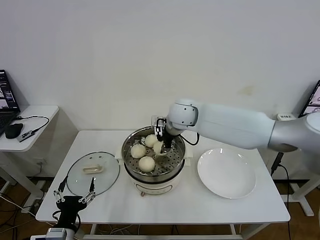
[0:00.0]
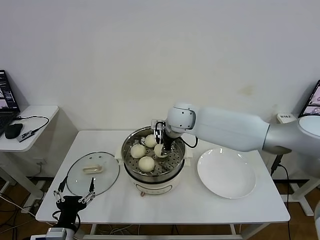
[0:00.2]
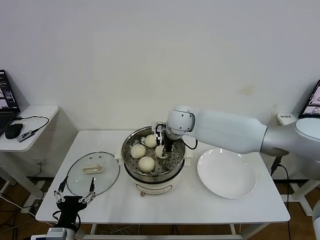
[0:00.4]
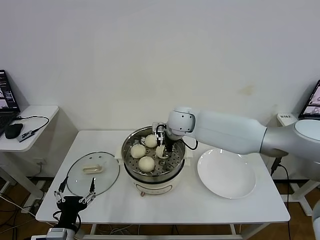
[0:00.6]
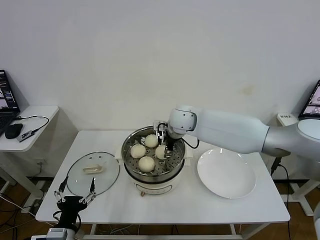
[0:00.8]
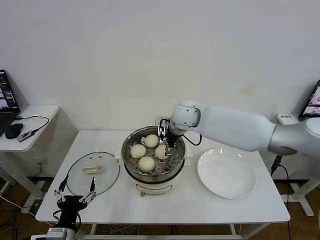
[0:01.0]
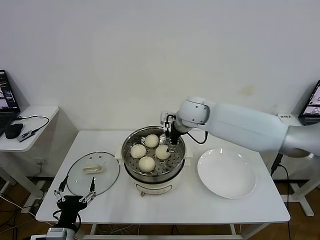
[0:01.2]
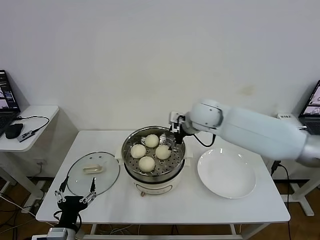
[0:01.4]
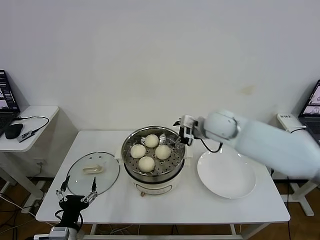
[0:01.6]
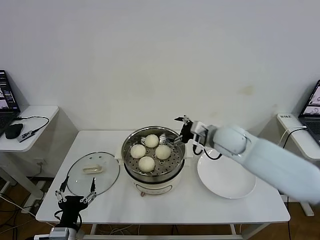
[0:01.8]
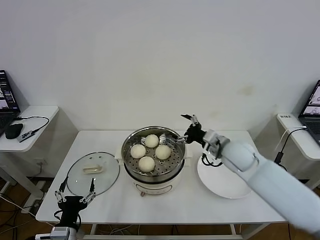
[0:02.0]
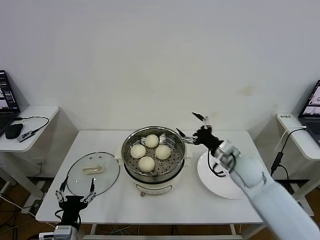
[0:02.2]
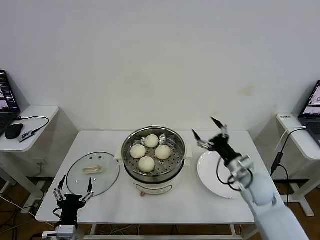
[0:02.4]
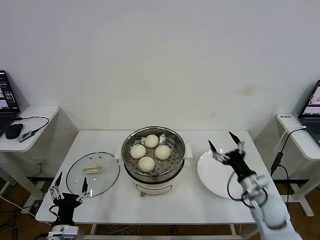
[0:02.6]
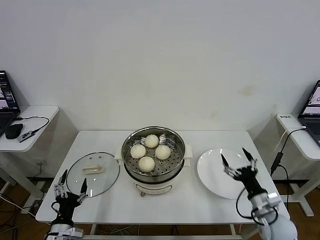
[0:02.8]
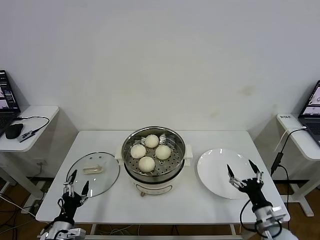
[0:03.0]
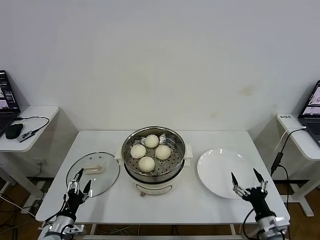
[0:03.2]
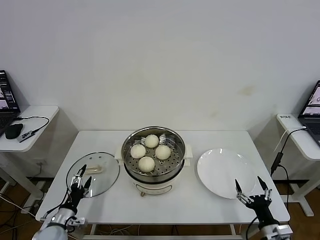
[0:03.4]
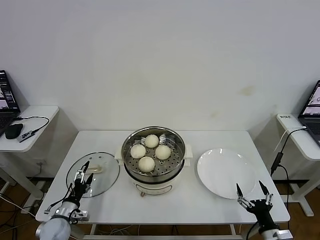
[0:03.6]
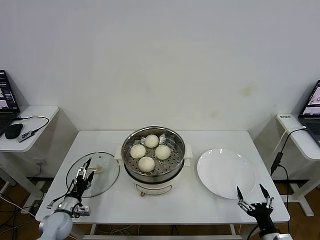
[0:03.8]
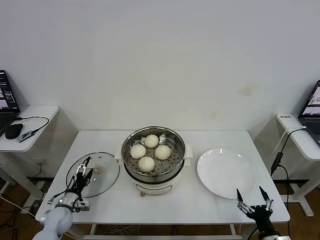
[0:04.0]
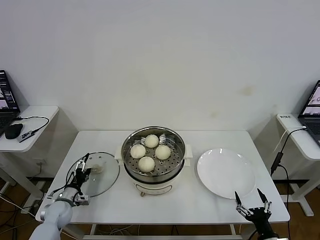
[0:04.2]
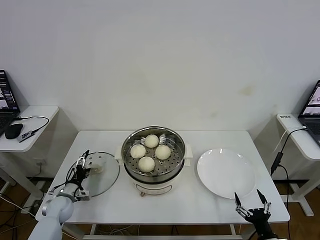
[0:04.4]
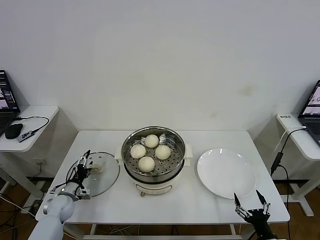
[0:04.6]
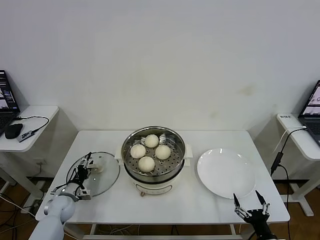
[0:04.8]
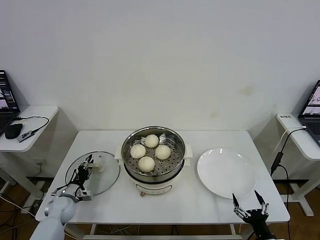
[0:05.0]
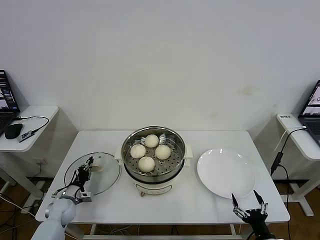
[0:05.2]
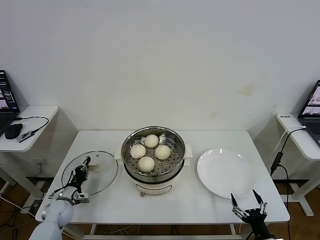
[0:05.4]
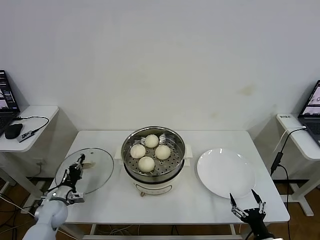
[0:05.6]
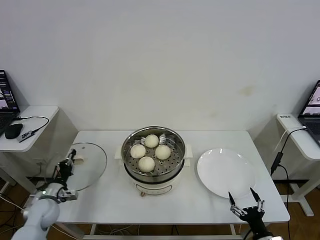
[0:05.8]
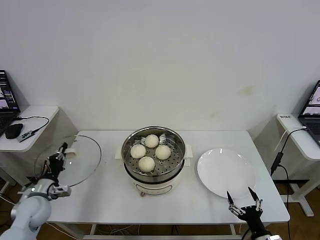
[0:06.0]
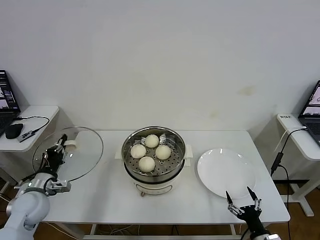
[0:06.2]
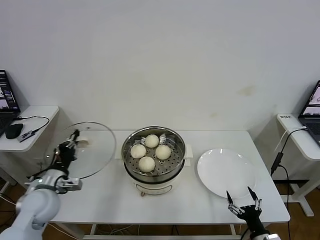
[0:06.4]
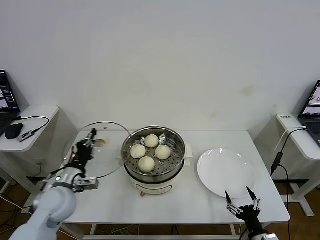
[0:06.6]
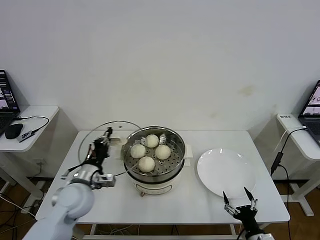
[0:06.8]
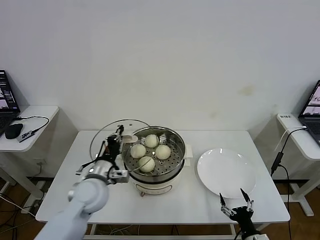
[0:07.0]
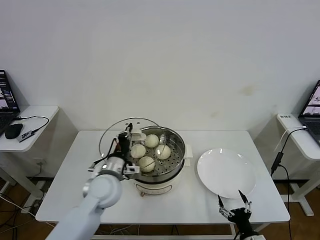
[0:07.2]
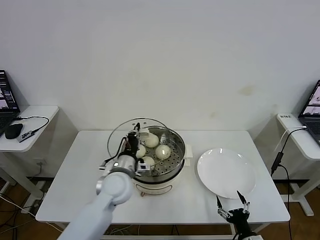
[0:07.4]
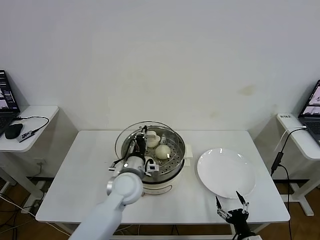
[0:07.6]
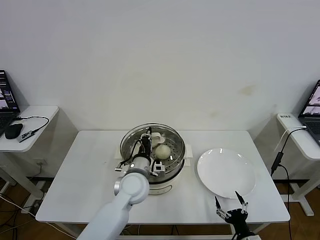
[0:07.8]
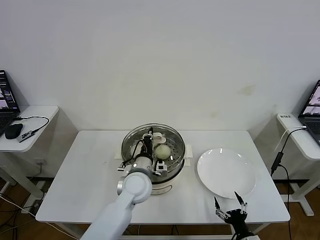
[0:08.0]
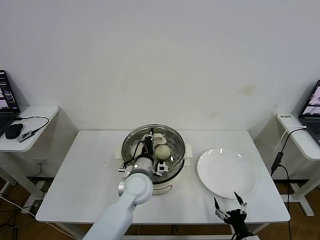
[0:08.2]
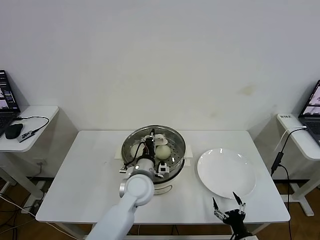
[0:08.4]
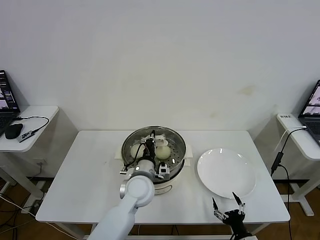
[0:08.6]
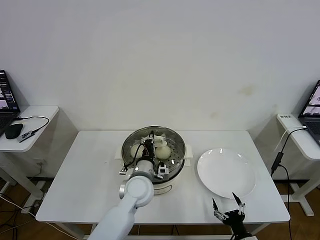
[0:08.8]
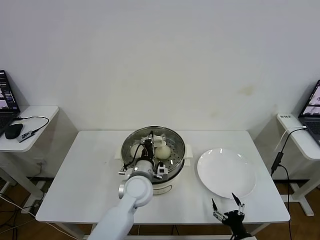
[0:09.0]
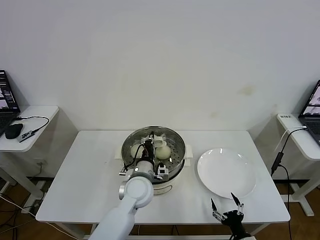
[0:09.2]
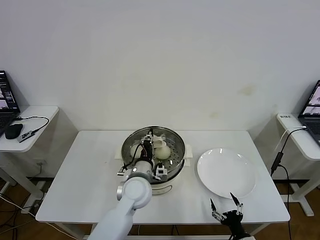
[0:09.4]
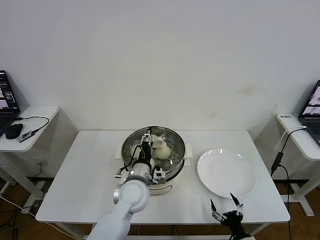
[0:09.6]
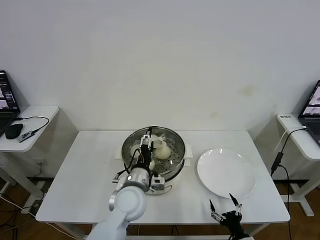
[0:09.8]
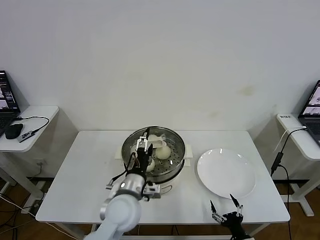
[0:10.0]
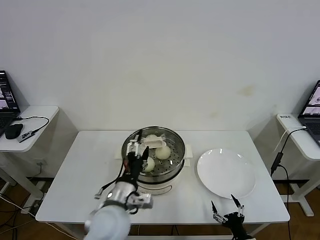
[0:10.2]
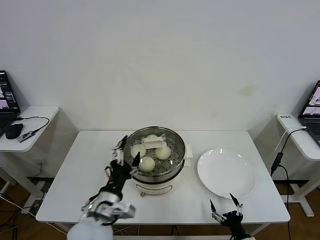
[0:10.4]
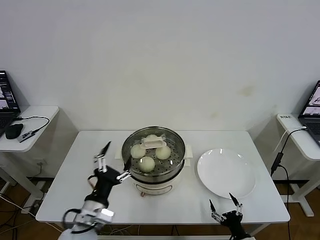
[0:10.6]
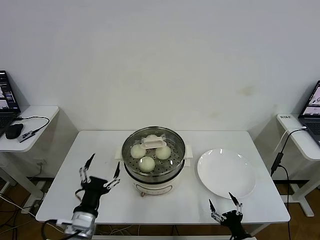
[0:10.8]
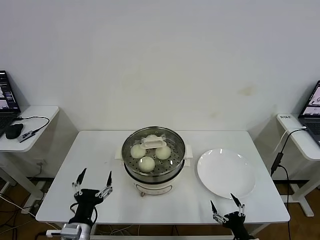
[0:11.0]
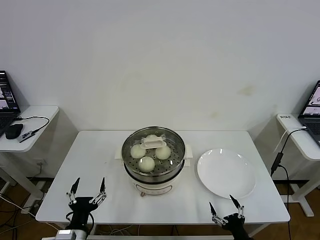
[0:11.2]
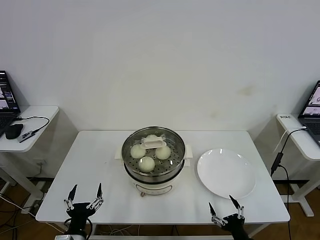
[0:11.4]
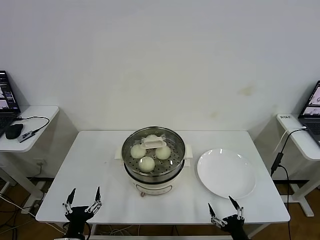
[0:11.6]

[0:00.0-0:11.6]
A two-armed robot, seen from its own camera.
Task of the whole recording: take steamed baozi put them in steamer then cover it.
Step, 0:01.0 to 0:05.4: Grasp the pot lid with left gripper.
Step, 0:05.6 to 0:09.4: Place the pot lid on the steamer with left gripper.
0:00.0 to 0:01.4: The right gripper is displaced to the right by approximately 5 cm, and opens its fingers.
0:01.4 to 0:02.8: The left gripper shifts about 5 cm downward; the right gripper moves backward, downward and to the right, some 40 cm.
0:02.8 to 0:04.4: The left gripper heads forward and to the left, covering some 20 cm. Meanwhile the right gripper shifts about 15 cm backward and downward.
0:04.4 to 0:05.8: The left gripper goes some 5 cm upward, and closes its fingers.
0:05.8 to 0:07.2: The left gripper moves to the right and upward, about 30 cm.
0:07.2 to 0:08.8: The left gripper moves to the right, roughly 10 cm.
0:08.8 to 0:10.2: The left gripper moves backward, approximately 10 cm, and opens up.
0:10.2 to 0:11.6: The right gripper ends up approximately 5 cm from where it was, while the left gripper shifts roughly 25 cm to the left, downward and backward.
